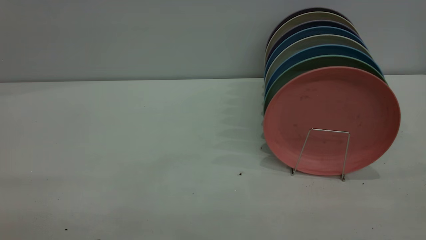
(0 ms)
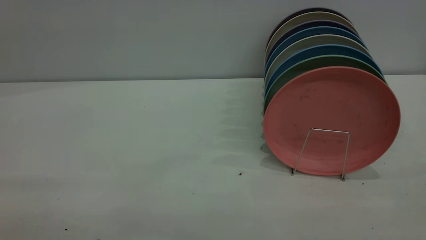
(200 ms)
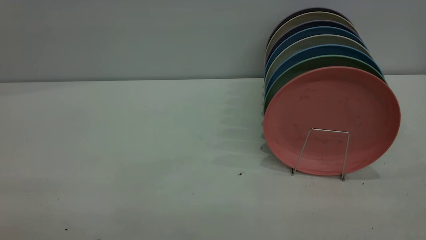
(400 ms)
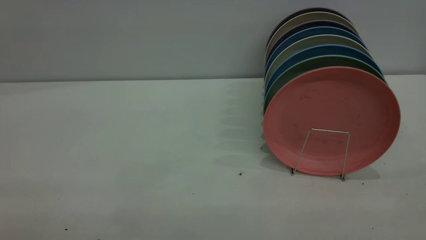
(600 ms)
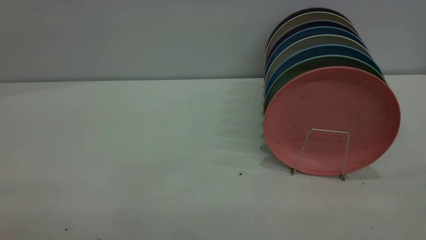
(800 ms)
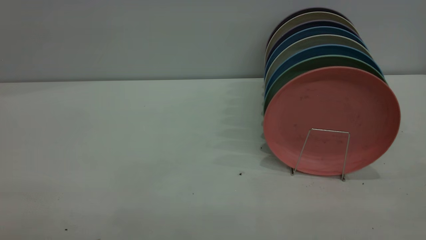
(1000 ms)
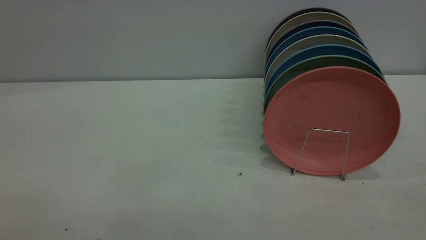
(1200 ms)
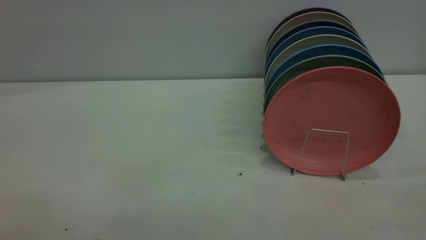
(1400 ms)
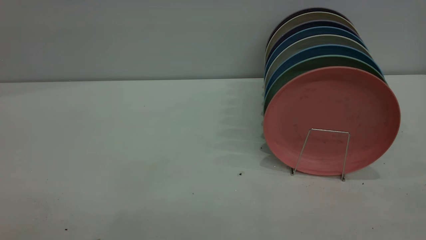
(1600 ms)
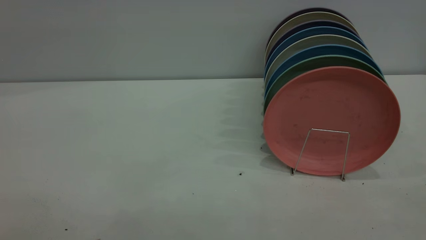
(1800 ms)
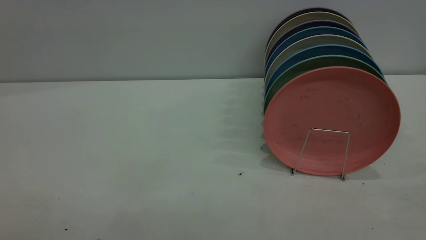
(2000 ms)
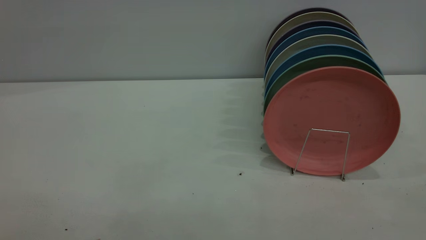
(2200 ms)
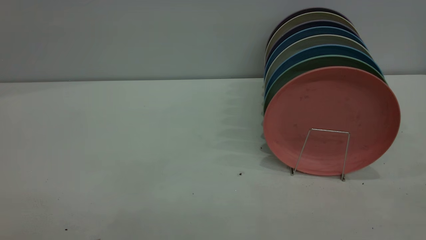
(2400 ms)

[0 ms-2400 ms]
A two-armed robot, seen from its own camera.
Task of the whole recording: put the plate on the plate rack.
1200 ms to 2400 ms: Neither gripper changes place.
